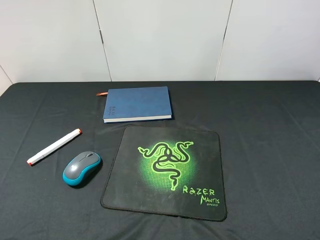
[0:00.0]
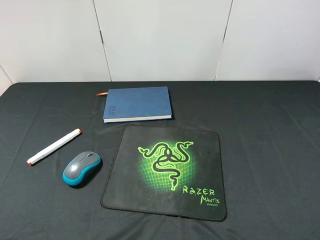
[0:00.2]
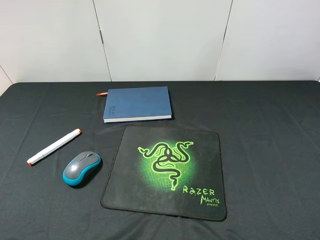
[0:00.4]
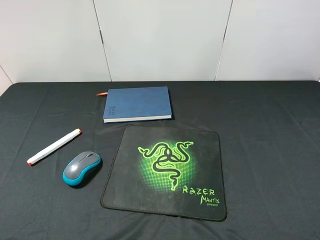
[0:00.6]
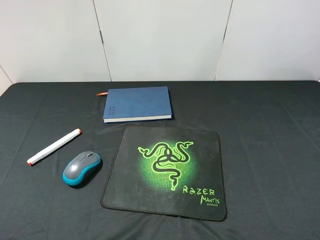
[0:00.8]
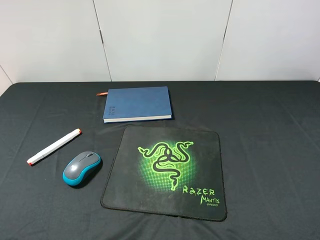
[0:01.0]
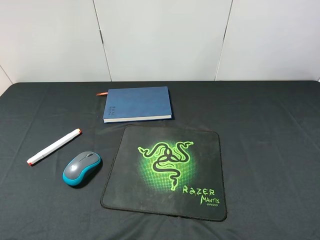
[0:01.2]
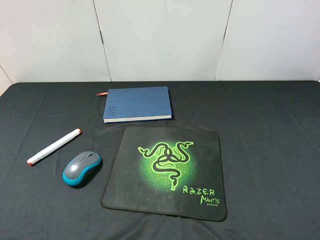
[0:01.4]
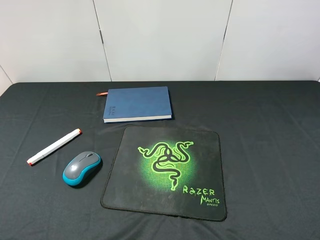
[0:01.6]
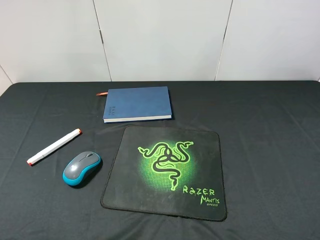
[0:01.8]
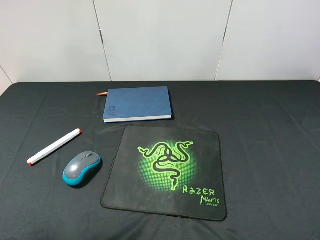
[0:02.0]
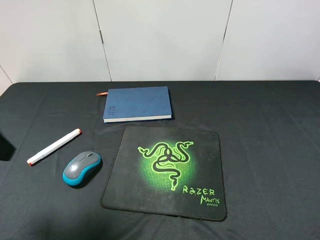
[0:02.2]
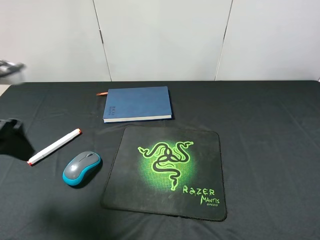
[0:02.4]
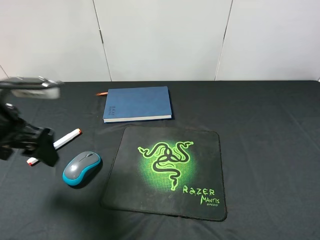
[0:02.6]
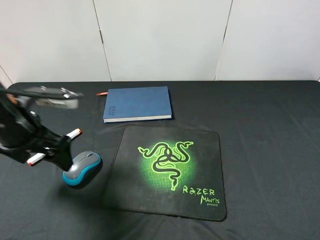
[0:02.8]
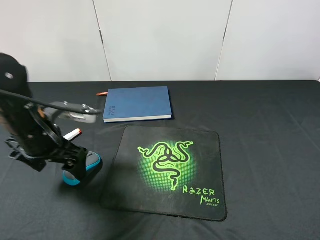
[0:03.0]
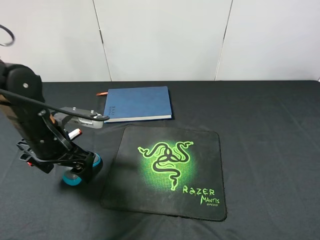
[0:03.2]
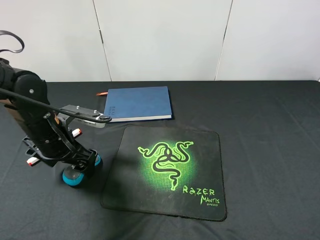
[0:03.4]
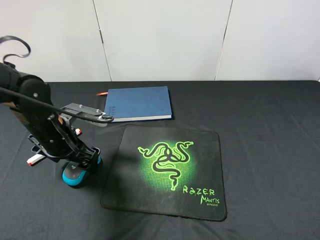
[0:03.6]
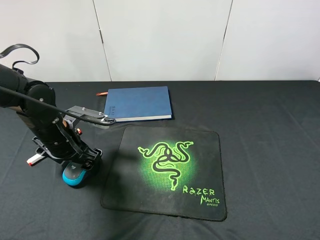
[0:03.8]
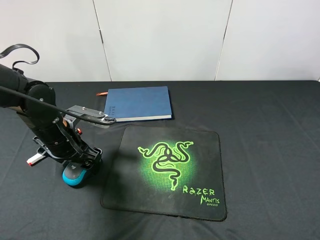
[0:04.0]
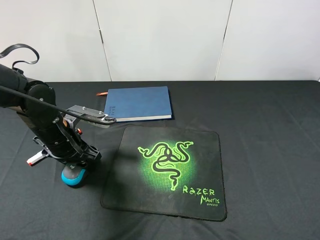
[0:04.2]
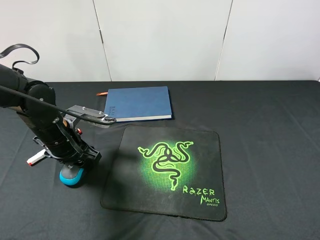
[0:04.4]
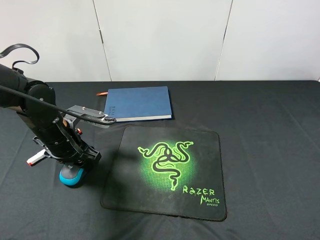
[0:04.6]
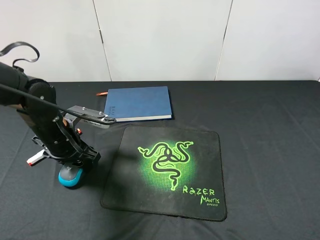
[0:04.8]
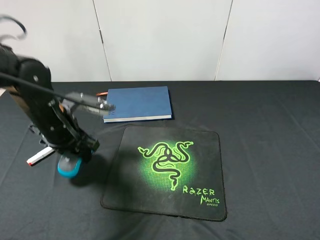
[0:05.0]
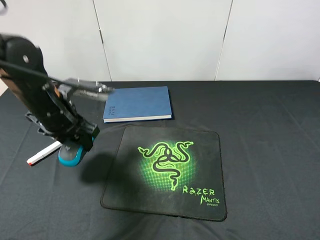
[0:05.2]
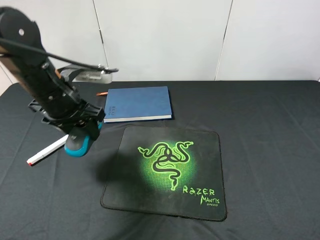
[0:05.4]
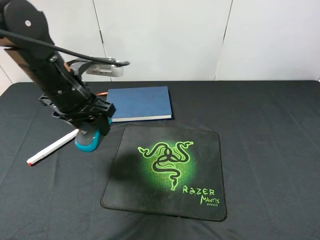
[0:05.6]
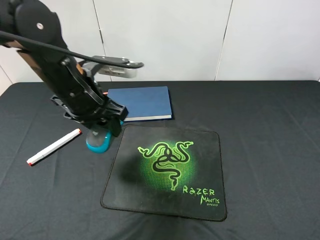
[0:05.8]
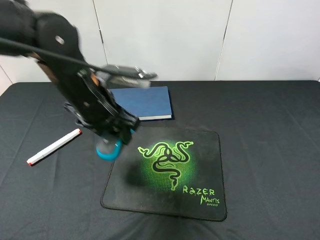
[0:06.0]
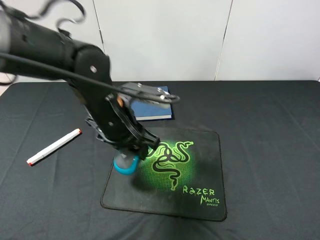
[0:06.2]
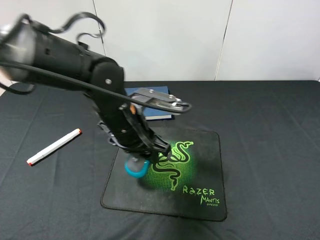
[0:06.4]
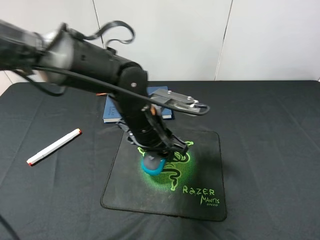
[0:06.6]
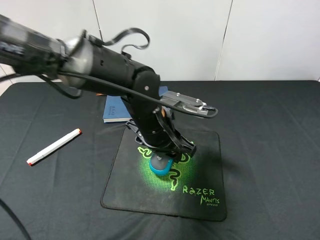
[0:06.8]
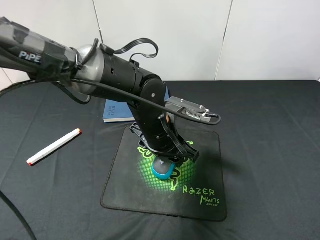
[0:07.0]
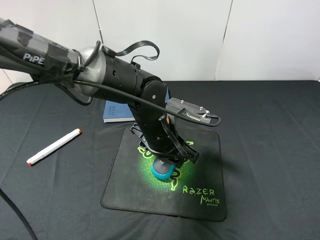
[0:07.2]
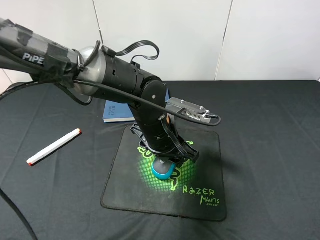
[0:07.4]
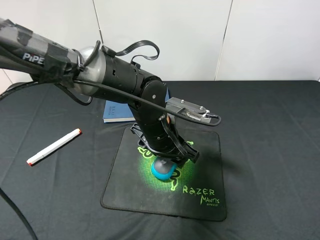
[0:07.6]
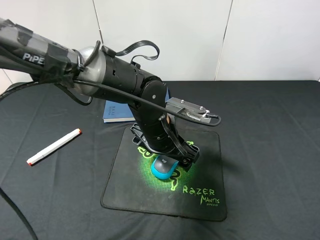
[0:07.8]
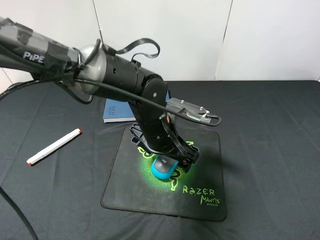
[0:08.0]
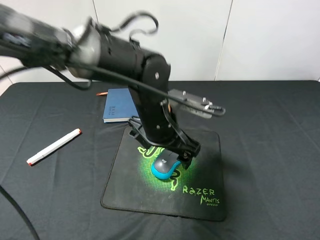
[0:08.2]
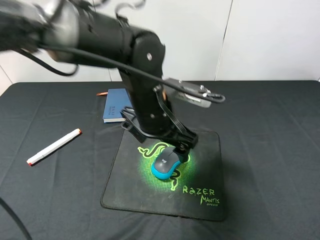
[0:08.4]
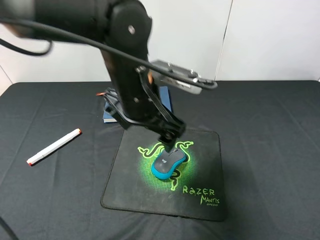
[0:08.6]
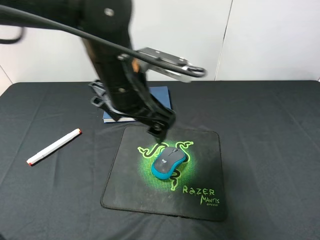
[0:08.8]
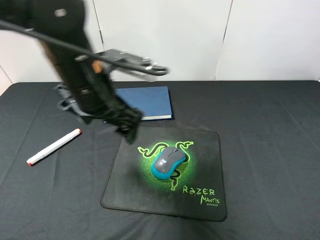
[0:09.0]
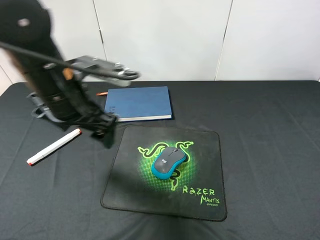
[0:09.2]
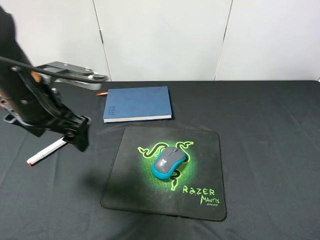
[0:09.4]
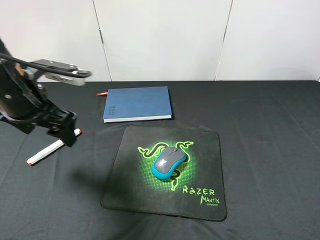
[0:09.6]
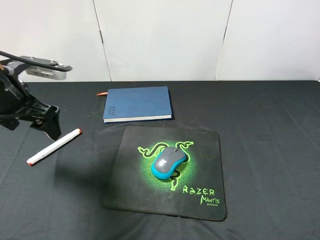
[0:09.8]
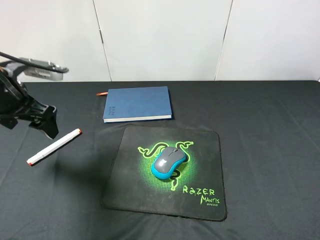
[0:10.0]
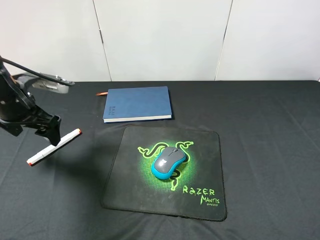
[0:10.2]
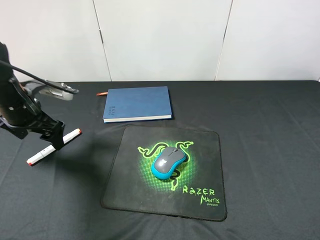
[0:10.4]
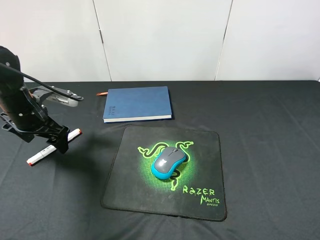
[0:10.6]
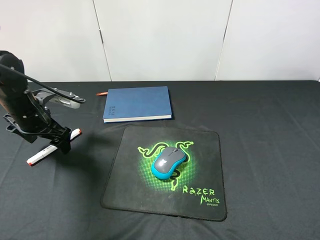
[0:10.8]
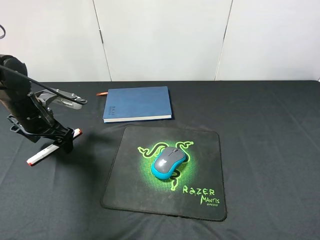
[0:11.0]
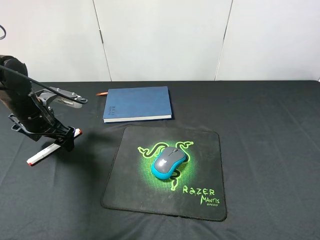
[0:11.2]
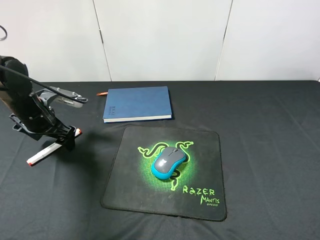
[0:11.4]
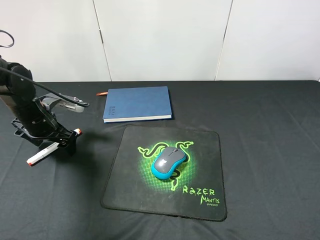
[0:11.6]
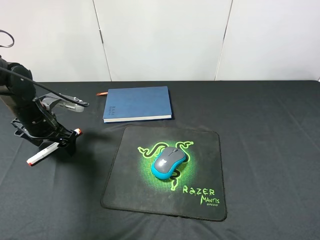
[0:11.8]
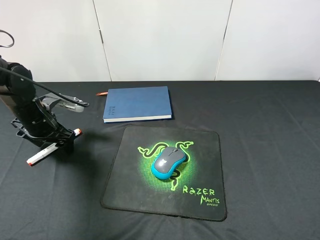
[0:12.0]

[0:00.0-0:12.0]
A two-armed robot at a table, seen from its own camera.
Step, 0:00.0 to 0:05.0: Pick up the mouse with left gripper.
Step, 0:05.2 to 0:08.0: Place the mouse on the mouse pad with left gripper.
0:01.6 to 0:03.0: The left gripper goes about 30 cm forward, downward and to the right.
0:03.0 to 0:04.4: The left gripper closes.
0:04.4 to 0:06.0: The left gripper heads to the right and upward, covering approximately 15 cm.
0:06.0 to 0:07.6: The left gripper is displaced to the right and downward by about 15 cm.
0:07.6 to 0:09.0: The left gripper moves upward and to the left, roughly 15 cm.
0:09.0 to 0:10.4: The left gripper is displaced to the left and downward by approximately 20 cm.
0:10.4 to 0:12.0: The left gripper moves downward, about 5 cm.

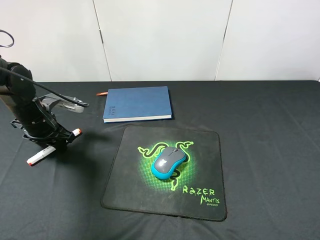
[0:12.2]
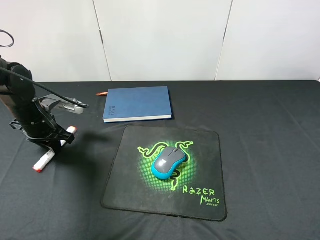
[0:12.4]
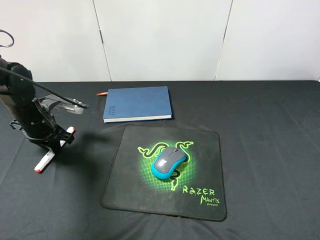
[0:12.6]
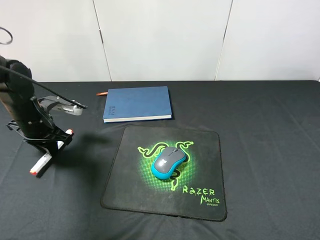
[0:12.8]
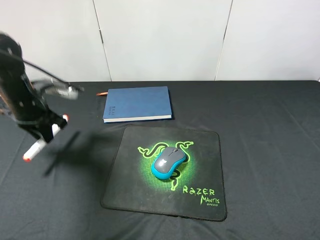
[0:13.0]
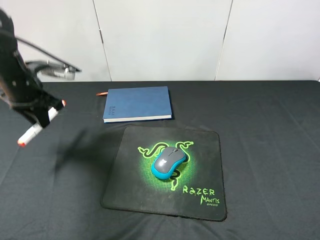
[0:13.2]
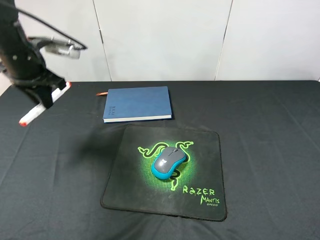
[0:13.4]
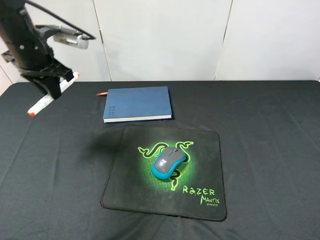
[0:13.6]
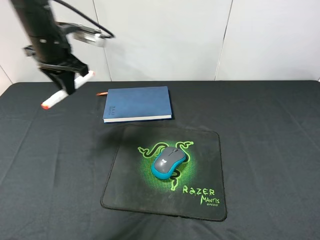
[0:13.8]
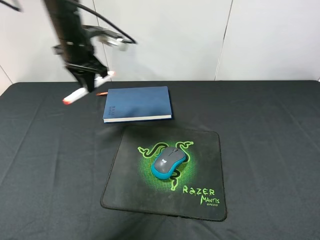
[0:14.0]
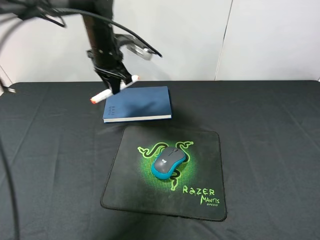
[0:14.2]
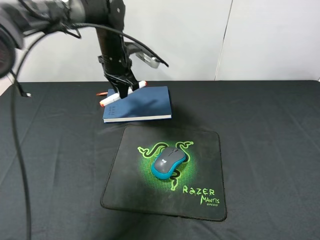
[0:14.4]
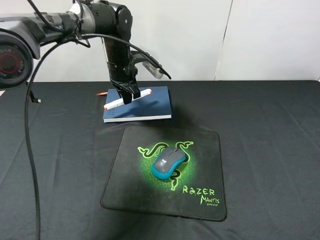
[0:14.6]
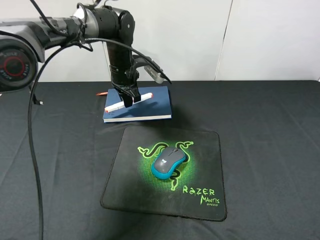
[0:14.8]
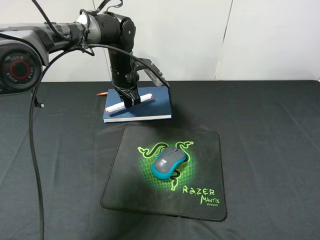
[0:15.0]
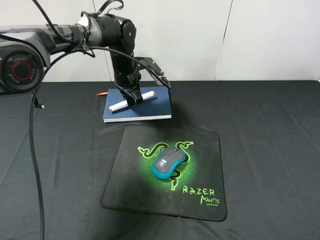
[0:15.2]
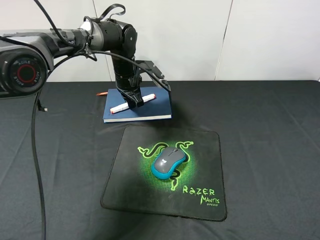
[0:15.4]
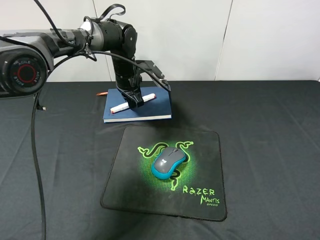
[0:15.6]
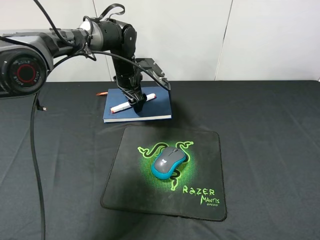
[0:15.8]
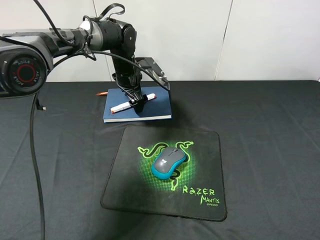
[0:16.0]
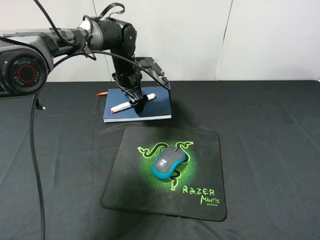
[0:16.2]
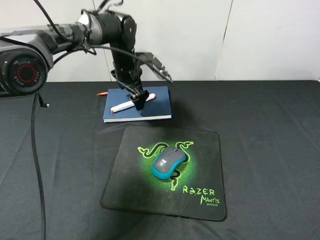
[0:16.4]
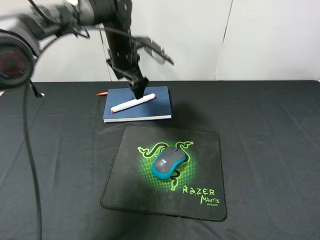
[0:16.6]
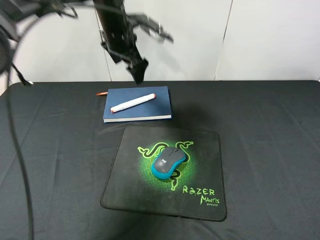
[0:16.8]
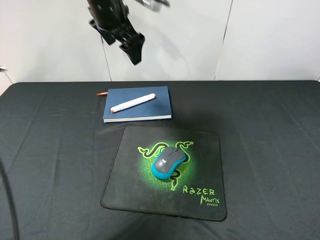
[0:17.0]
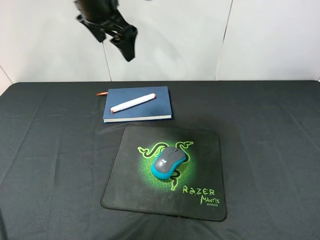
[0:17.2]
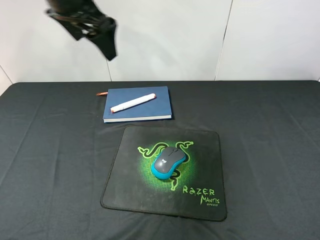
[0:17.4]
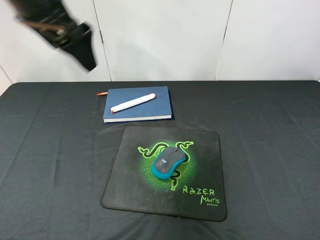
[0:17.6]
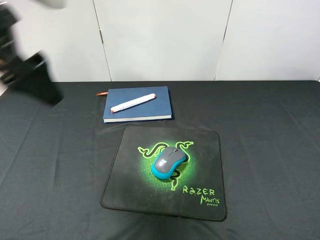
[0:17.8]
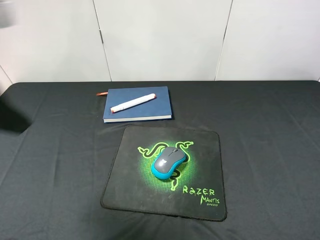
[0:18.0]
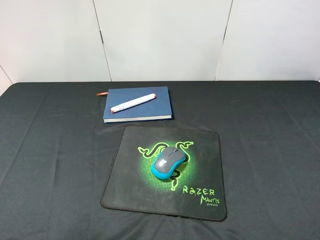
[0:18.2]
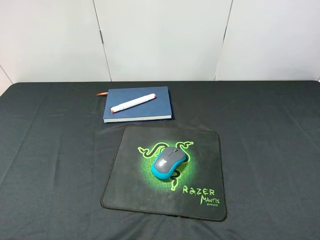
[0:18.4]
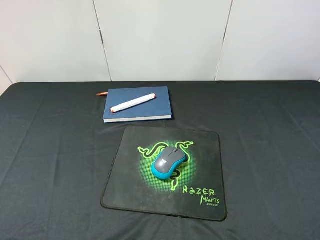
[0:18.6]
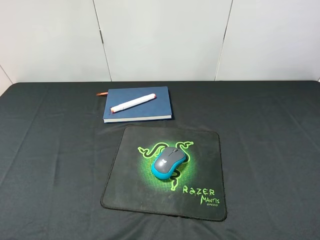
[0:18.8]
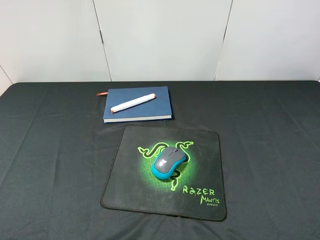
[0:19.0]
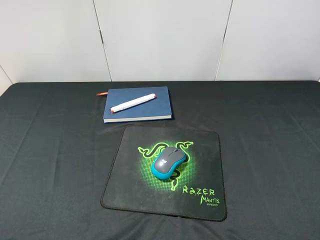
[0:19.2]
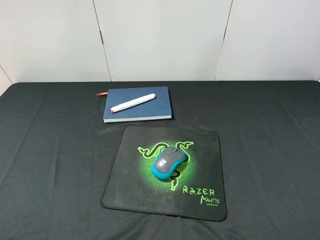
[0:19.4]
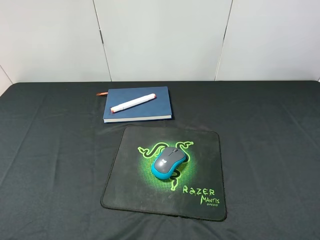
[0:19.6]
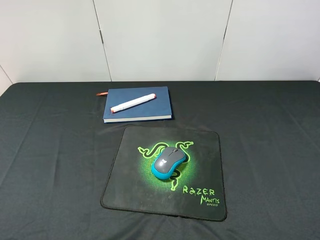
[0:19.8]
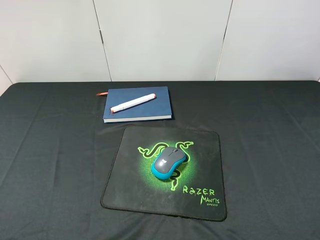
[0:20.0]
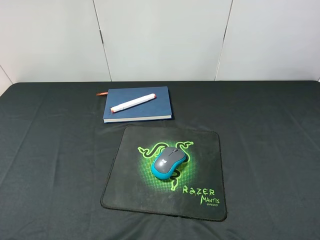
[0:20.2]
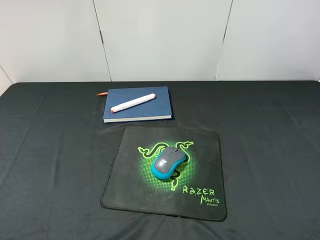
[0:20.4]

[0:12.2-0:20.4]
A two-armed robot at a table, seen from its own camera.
Step, 0:13.2 to 0:16.4: Place the marker pen on the notebook with left gripper.
0:12.2 to 0:13.8: The left gripper heads upward, to the right and forward, covering roughly 20 cm.
0:13.8 to 0:15.4: The left gripper shifts roughly 20 cm downward, to the right and forward.
0:15.4 to 0:17.2: The left gripper goes approximately 20 cm upward, and opens its fingers.
0:17.2 to 0:18.8: The left gripper moves backward and to the left, some 40 cm.
